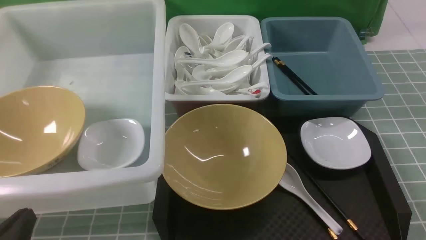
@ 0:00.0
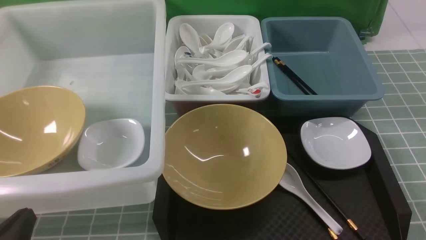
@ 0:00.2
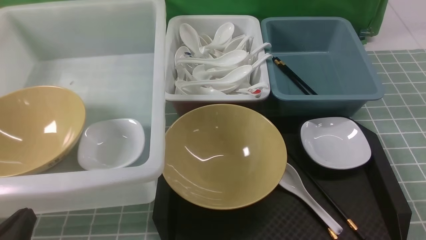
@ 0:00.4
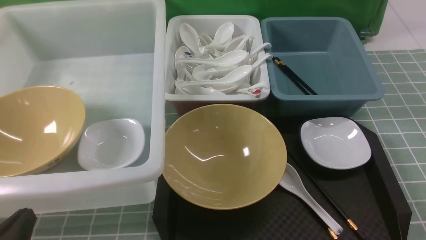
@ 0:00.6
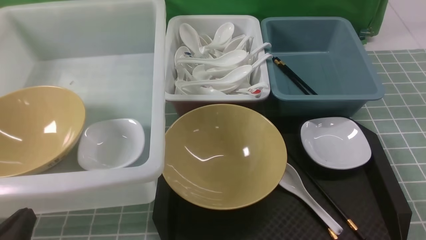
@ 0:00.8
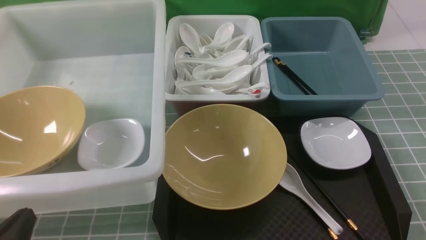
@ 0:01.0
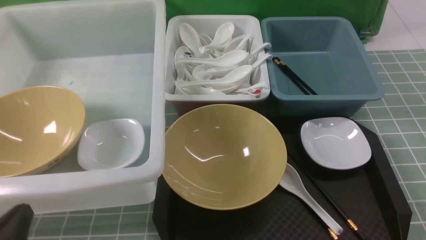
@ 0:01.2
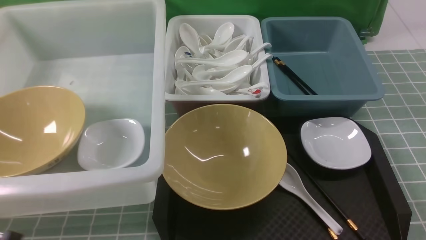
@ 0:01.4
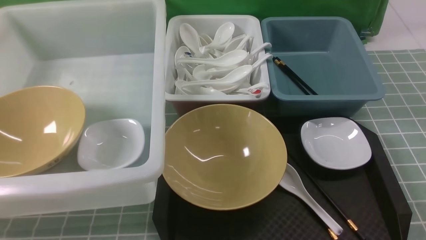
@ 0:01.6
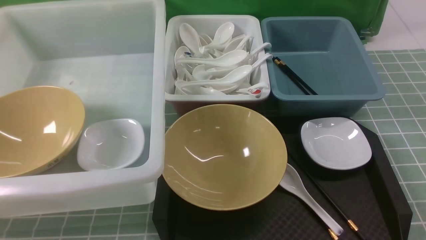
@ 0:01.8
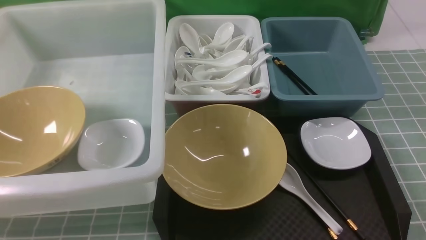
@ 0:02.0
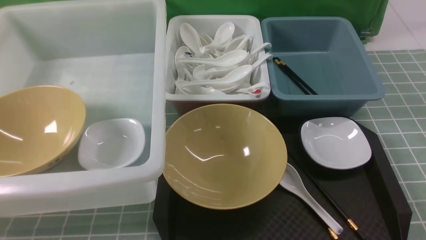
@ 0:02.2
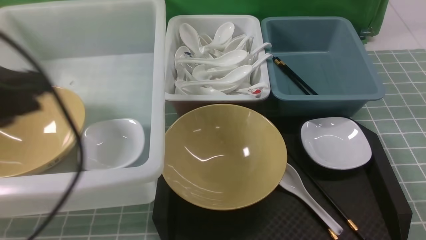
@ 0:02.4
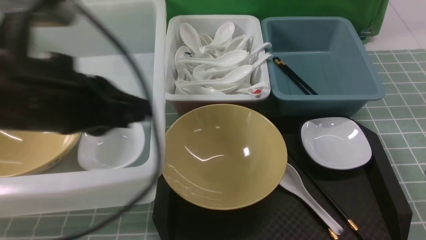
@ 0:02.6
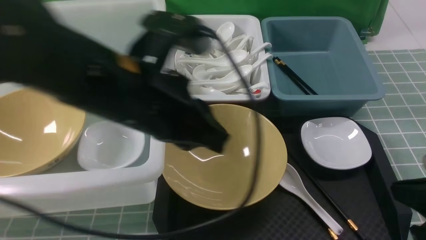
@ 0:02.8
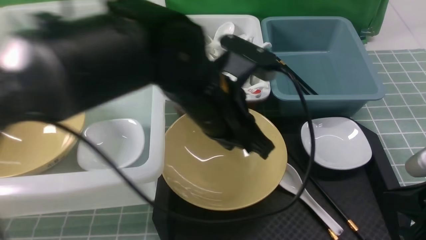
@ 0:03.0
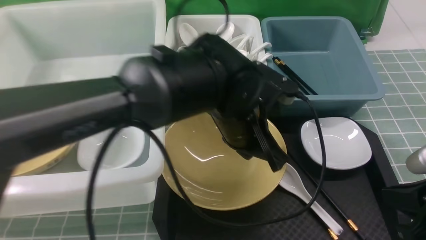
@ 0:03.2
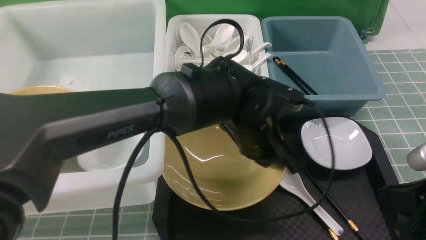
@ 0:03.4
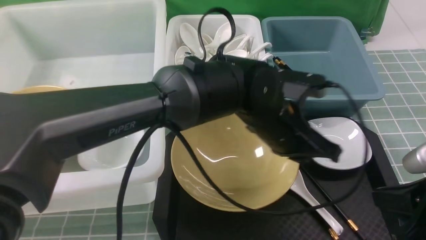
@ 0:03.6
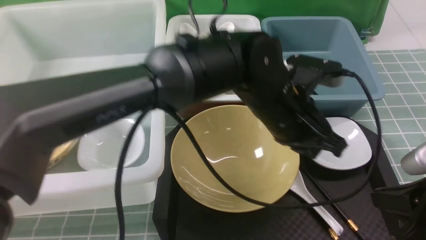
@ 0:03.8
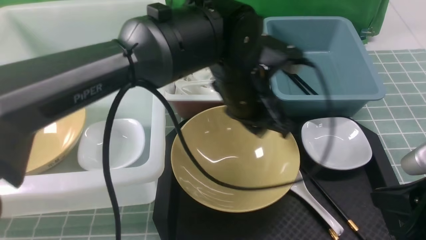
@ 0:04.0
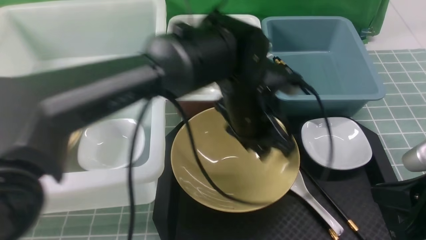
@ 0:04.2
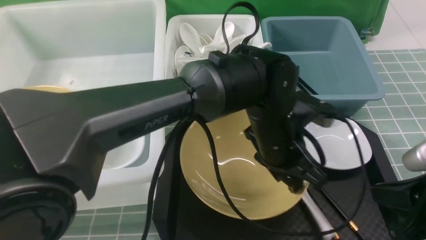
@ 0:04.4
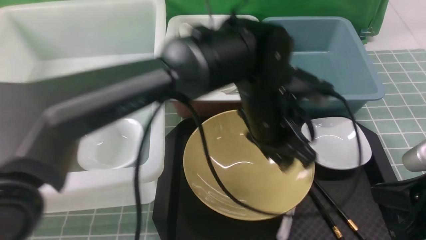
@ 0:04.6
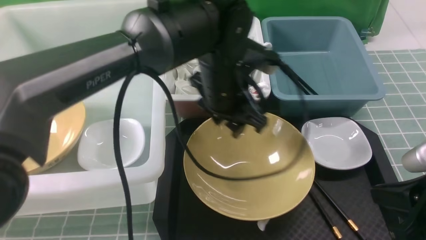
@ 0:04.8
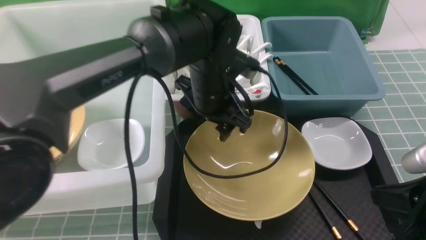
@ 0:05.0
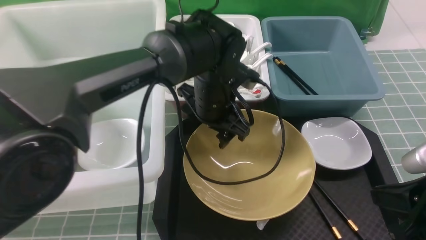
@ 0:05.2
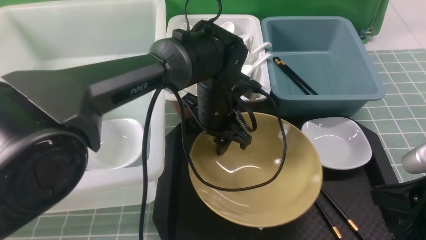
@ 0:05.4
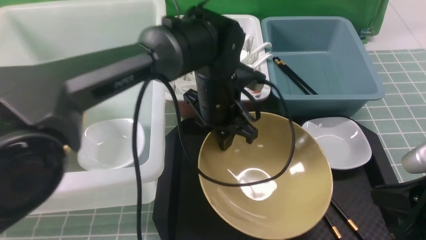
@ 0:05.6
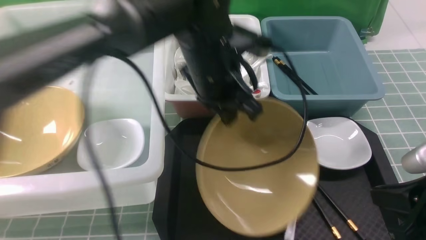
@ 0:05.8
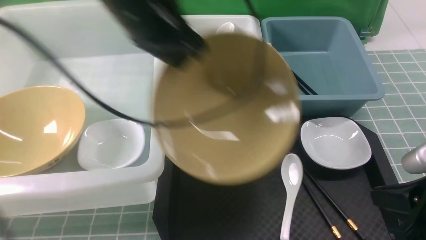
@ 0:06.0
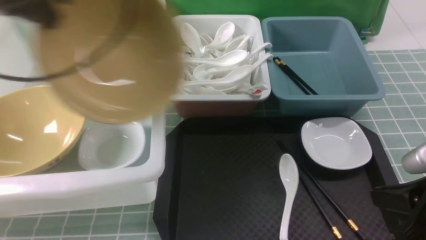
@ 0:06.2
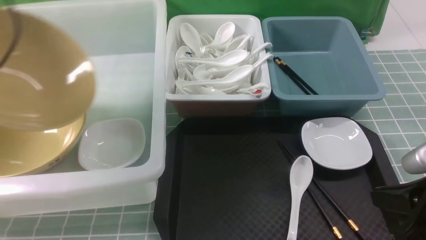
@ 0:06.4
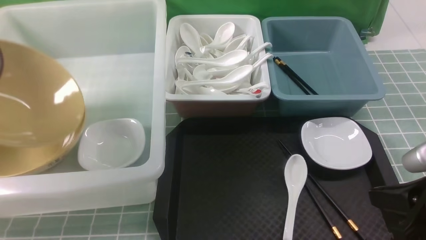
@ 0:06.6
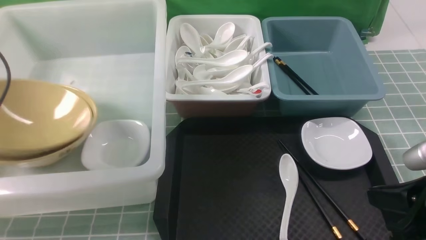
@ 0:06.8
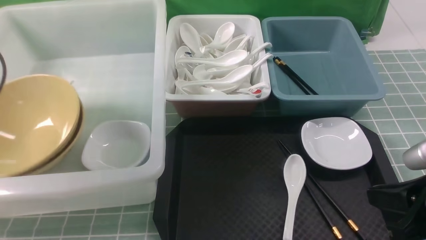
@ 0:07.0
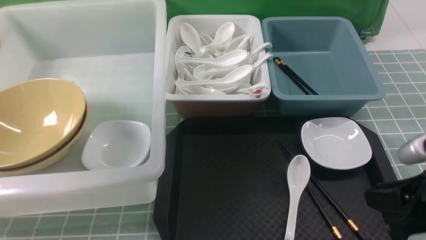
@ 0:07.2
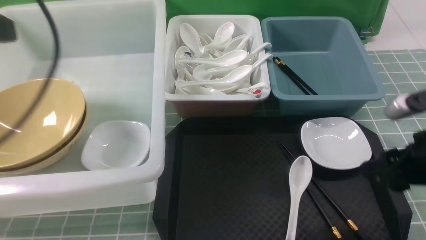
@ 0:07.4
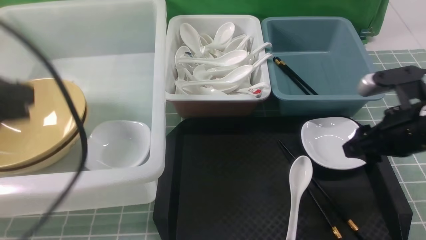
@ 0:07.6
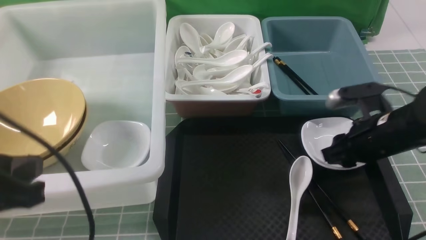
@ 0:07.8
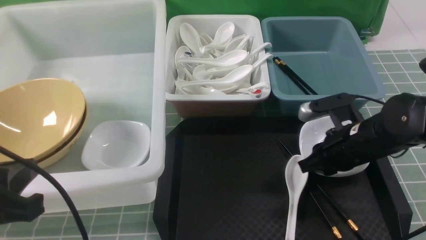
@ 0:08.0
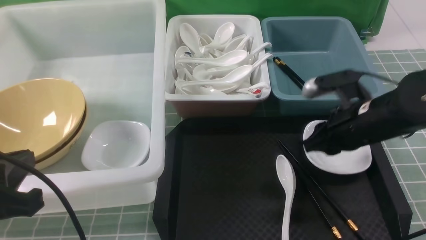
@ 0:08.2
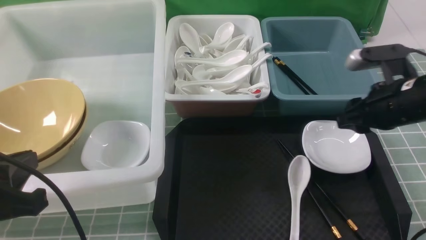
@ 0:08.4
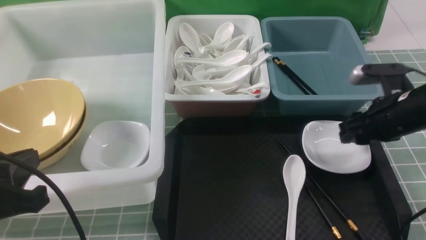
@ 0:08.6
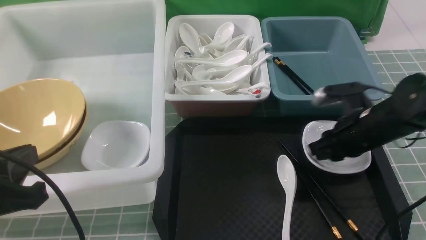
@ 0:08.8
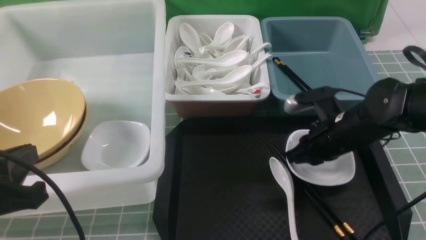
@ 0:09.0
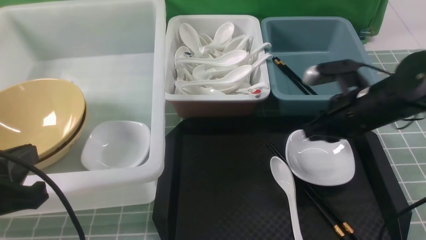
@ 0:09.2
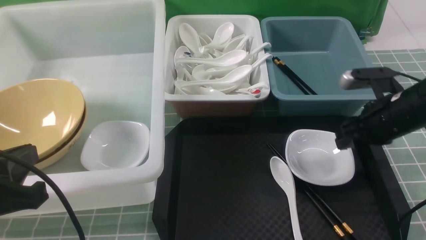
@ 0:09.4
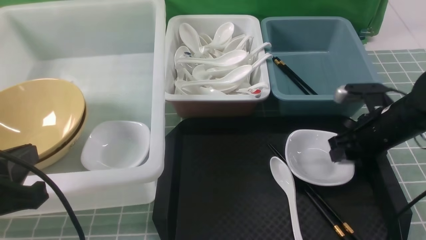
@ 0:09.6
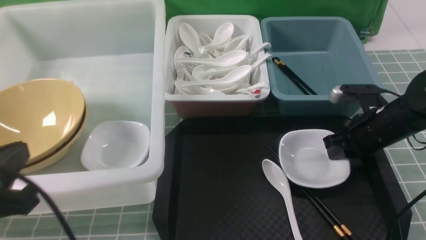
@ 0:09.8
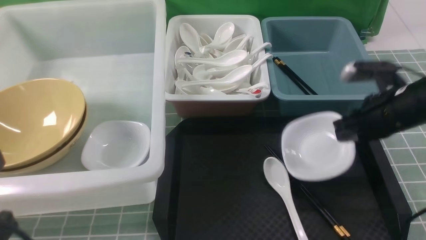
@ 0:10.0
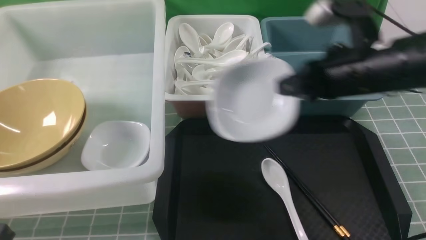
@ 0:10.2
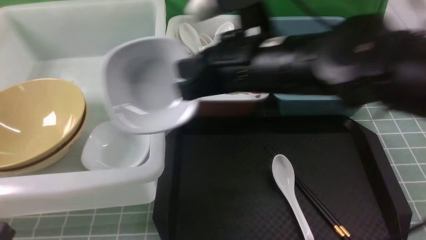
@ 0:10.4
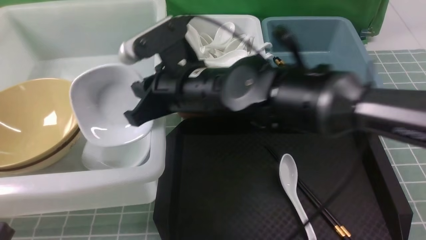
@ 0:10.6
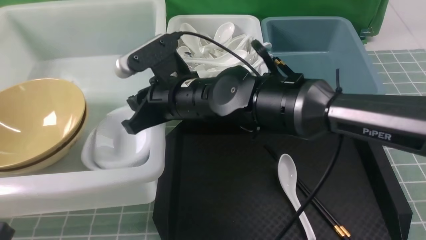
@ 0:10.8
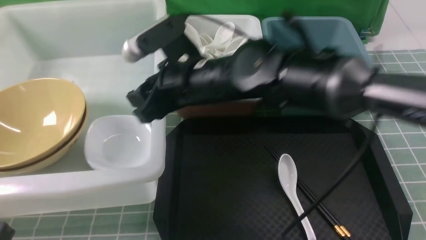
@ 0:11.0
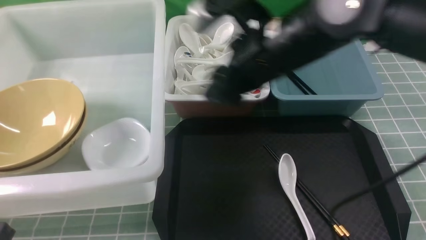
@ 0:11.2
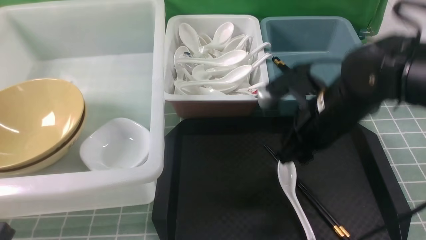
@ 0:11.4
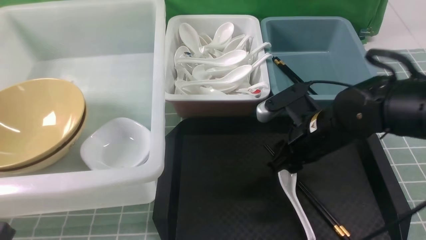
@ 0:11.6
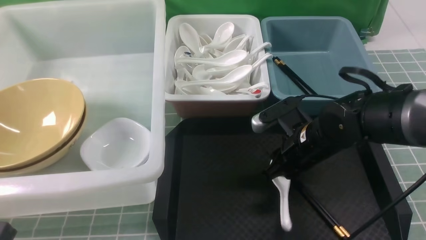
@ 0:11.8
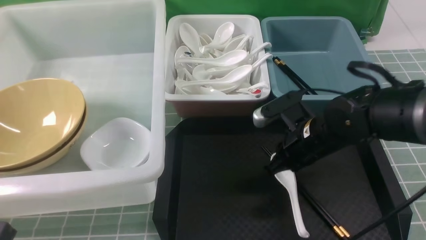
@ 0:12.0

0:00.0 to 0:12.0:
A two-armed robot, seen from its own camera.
Task of the whole recording: on blue table put chopsticks spoon bowls plates into blue grey white boxes.
Step, 0:00.0 to 0:05.6: use the left arm to grab the yellow noodle bowl on the left.
Step, 0:06.0 to 0:07.0: use the left arm to put the noodle bowl into the large storage box on the left.
Step, 0:07.2 to 0:10.0: use the right arm to grab the plate.
Step, 0:10.2 to 0:11.0: use the right arm to put the plate into the large storage box on the left.
Step, 0:11.2 to 0:11.8: use the right arm to grab the soup spoon in the middle.
0:00.0 to 0:01.6: The left gripper heads upward, covering approximately 10 cm.
0:01.6 to 0:03.0: The left gripper moves to the right and forward, about 35 cm. Meanwhile the right gripper goes about 10 cm forward, and closes its fingers.
0:03.0 to 0:04.4: The left gripper goes some 10 cm to the right and downward, and opens.
0:04.4 to 0:06.0: The left gripper moves to the left and upward, approximately 25 cm, and closes up.
0:06.0 to 0:07.6: The left gripper shifts some 20 cm backward and to the left, and opens, then closes again; the right gripper travels forward by about 10 cm, and opens.
0:07.6 to 0:09.0: The right gripper is displaced forward by some 5 cm, and closes up, while the left gripper is displaced downward by some 10 cm.
0:09.0 to 0:10.4: The left gripper is displaced backward by roughly 5 cm; the right gripper travels to the left and upward by roughly 20 cm, and opens, then closes again.
0:10.4 to 0:12.0: The right gripper goes approximately 15 cm downward and to the right, and opens, then closes again.

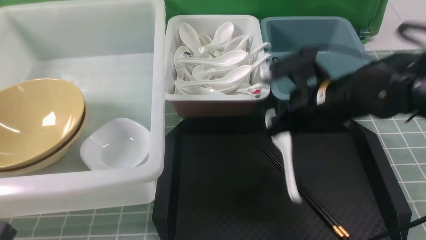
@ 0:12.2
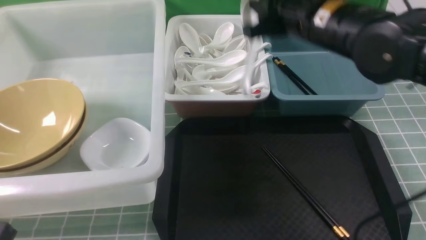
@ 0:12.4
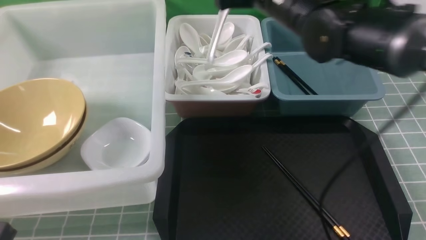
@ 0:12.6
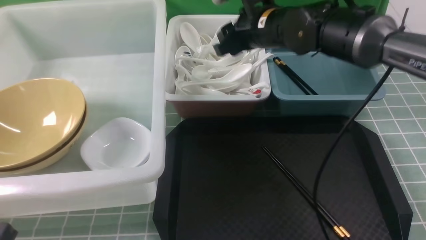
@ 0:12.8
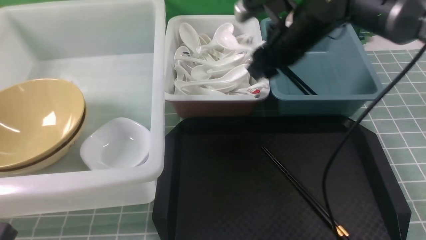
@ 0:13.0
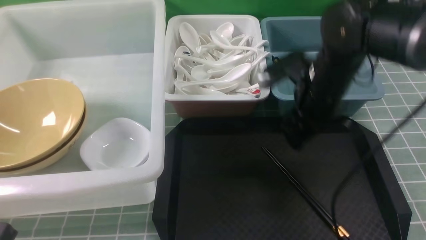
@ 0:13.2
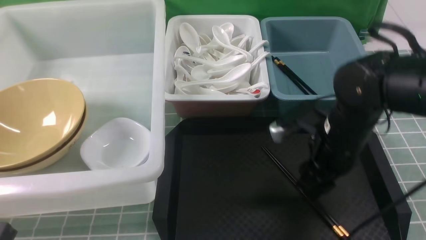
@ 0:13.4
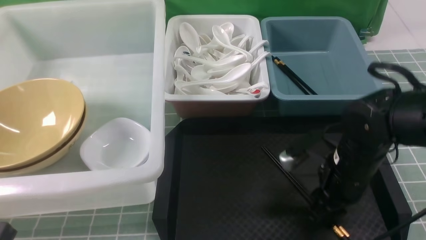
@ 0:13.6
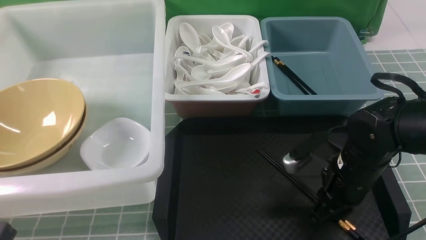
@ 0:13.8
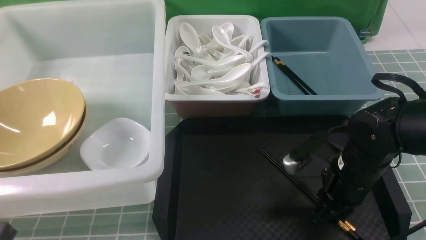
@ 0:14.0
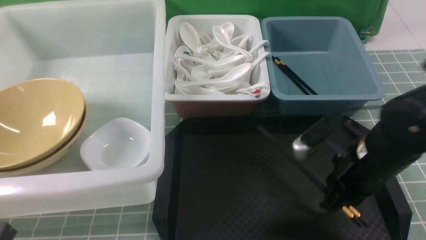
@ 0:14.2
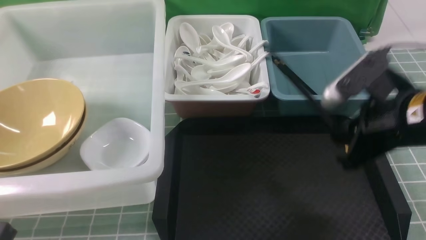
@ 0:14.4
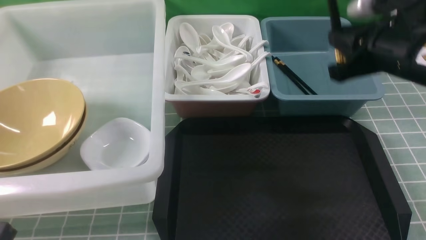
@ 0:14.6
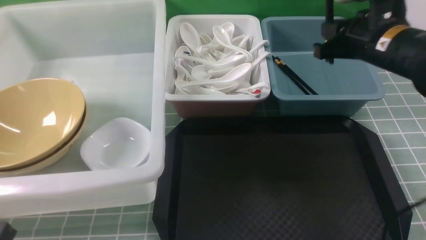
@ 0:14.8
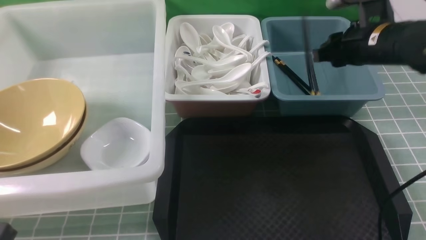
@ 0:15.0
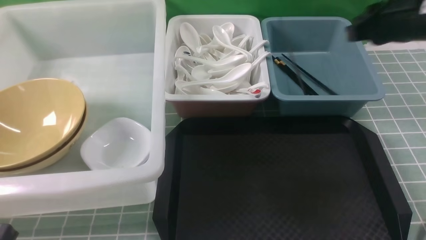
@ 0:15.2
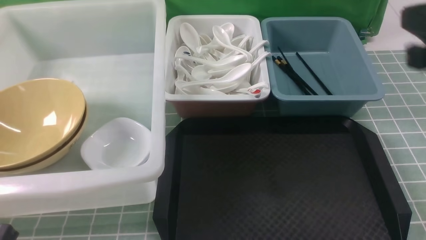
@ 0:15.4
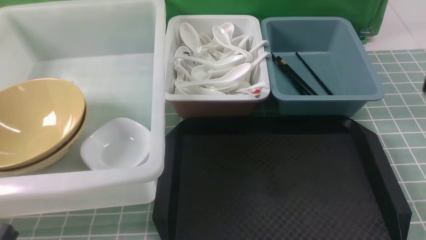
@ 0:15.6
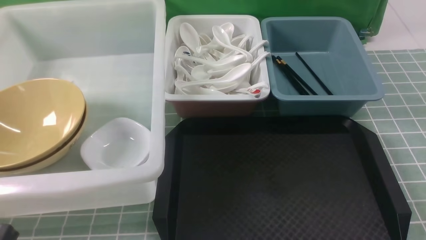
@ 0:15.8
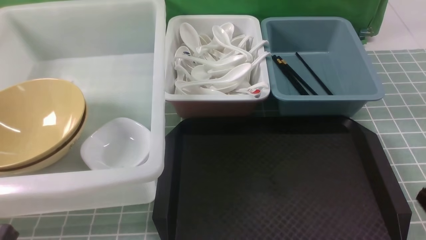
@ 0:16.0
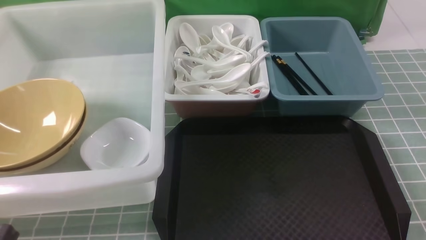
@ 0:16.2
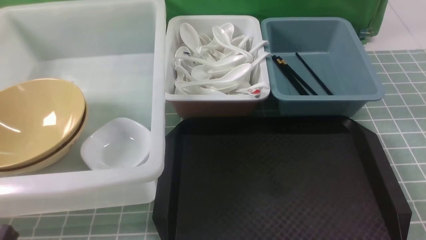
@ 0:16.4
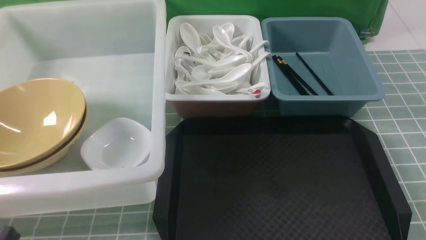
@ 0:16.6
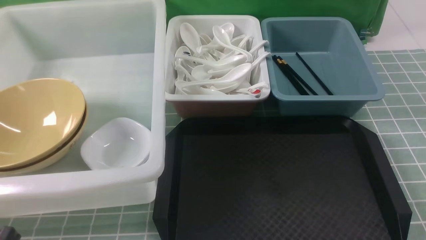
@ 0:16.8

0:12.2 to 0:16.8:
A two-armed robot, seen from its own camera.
Task of the whole recording: on blue table put chopsticks spoon bowls plates into blue grey white boxes.
Step, 0:12.2 to 0:12.8: use the right arm to put the soup spoon into the small storage box in the middle.
Step, 0:13.0 to 0:14.0: use the right arm to grab the chopsticks.
Step, 0:14.2 to 0:15.6: use the right arm to put the chopsticks into the small storage box on the right.
0:12.2 to 0:13.8: The right gripper goes some 15 cm downward, backward and to the right, and opens and closes again.
0:13.8 to 0:15.2: The right gripper heads upward, covering roughly 20 cm.
0:15.2 to 0:16.8: The right gripper moves backward and downward, roughly 30 cm.
